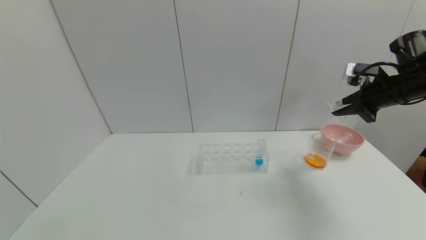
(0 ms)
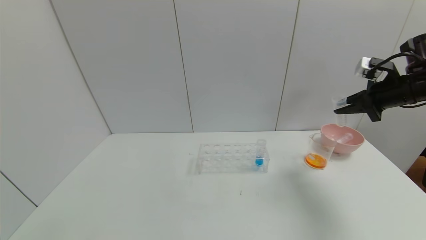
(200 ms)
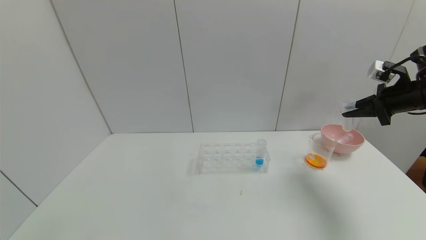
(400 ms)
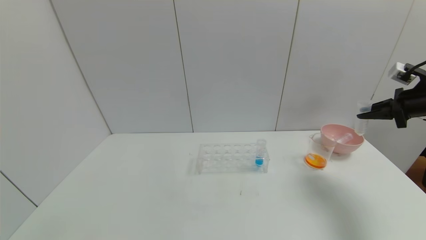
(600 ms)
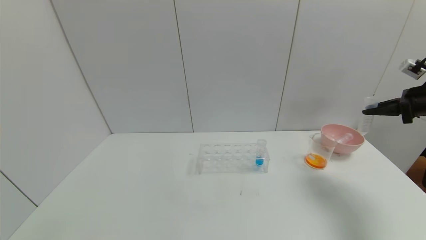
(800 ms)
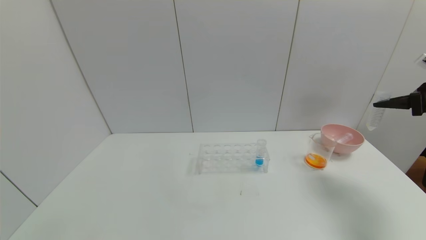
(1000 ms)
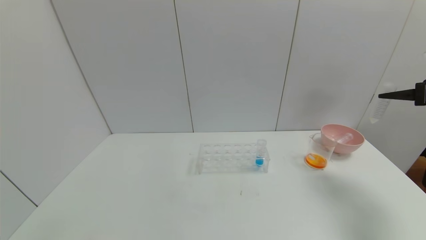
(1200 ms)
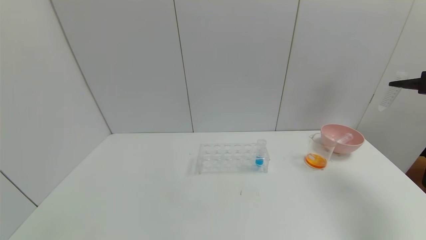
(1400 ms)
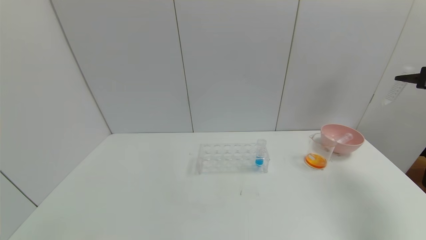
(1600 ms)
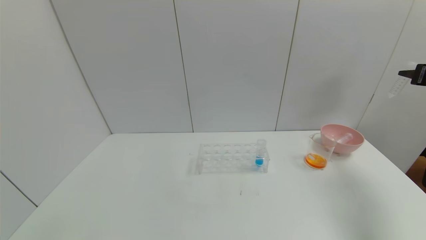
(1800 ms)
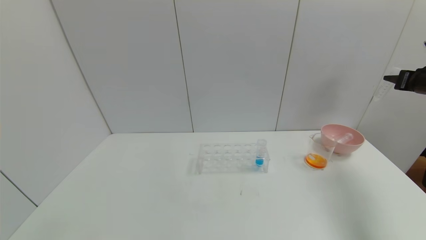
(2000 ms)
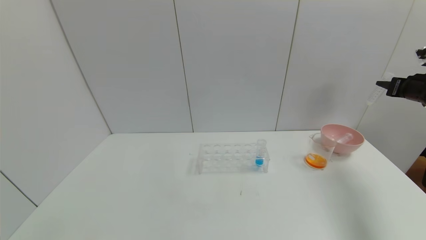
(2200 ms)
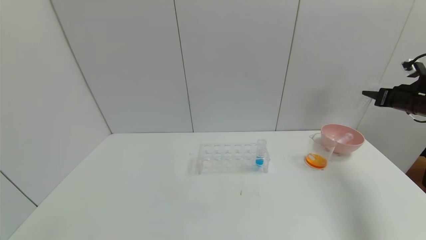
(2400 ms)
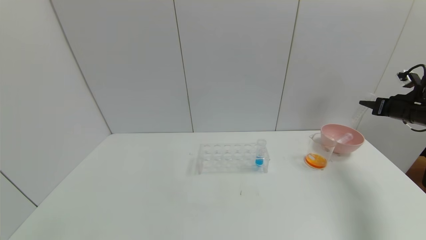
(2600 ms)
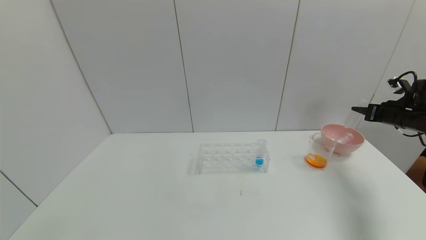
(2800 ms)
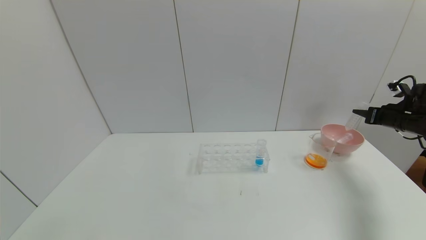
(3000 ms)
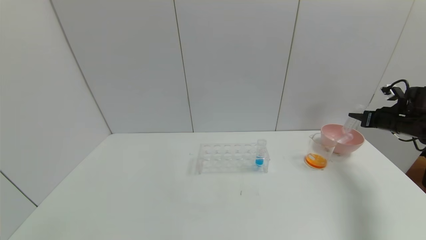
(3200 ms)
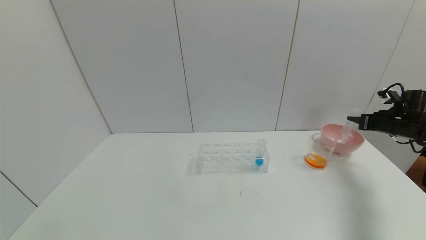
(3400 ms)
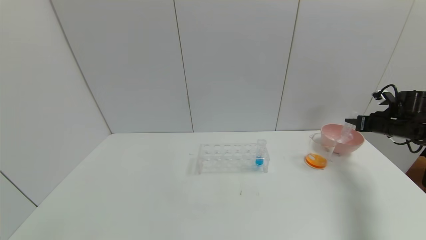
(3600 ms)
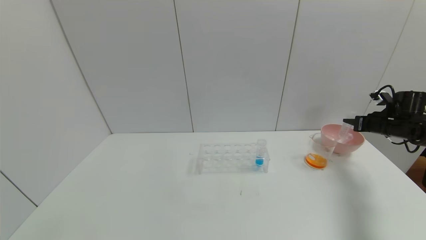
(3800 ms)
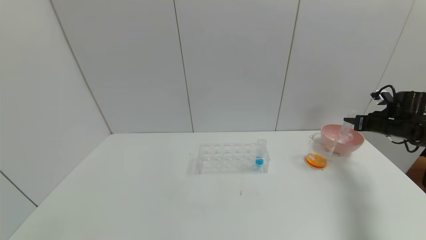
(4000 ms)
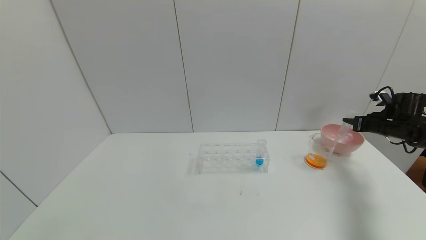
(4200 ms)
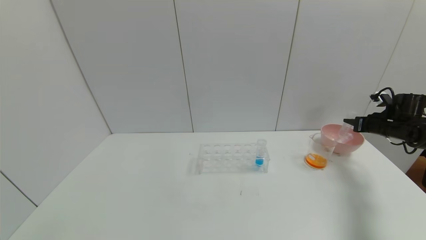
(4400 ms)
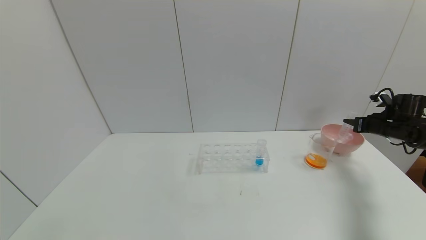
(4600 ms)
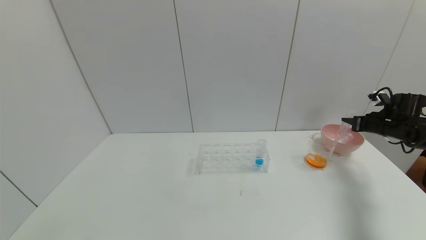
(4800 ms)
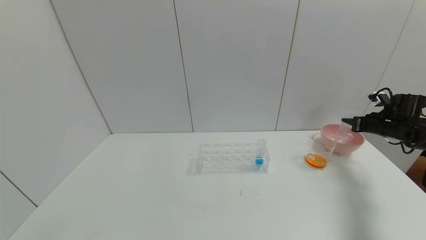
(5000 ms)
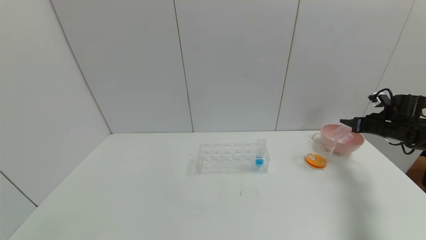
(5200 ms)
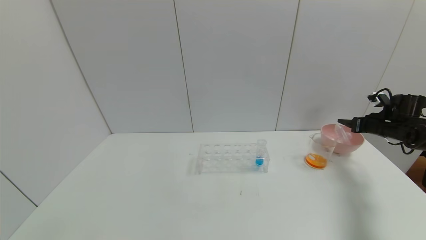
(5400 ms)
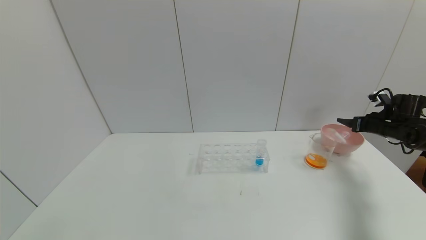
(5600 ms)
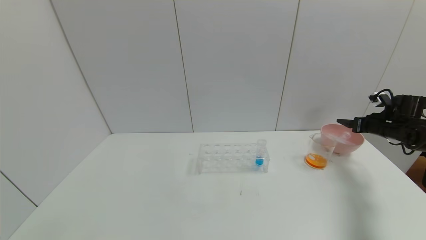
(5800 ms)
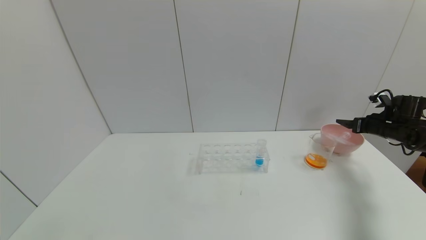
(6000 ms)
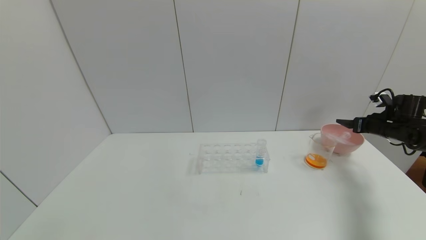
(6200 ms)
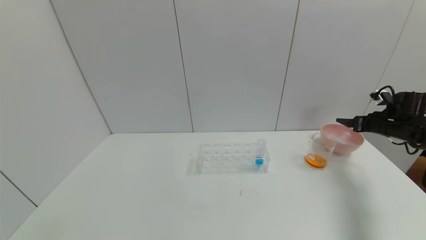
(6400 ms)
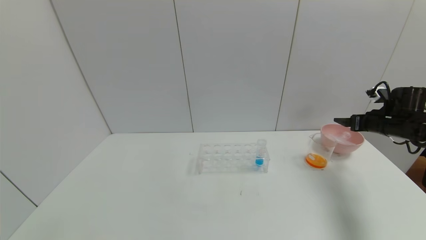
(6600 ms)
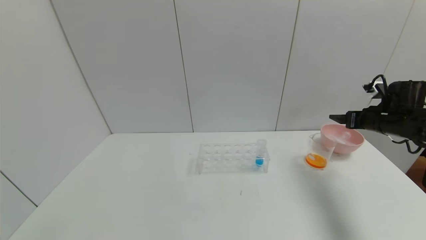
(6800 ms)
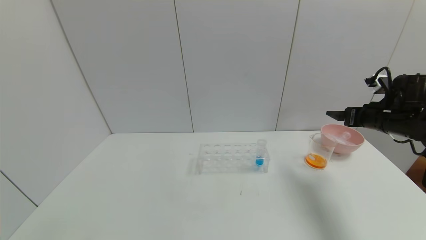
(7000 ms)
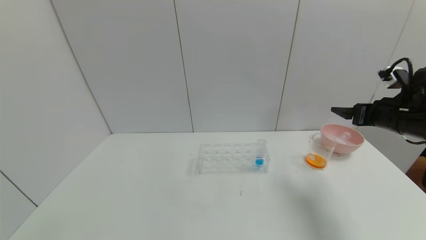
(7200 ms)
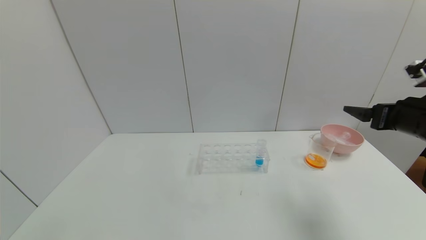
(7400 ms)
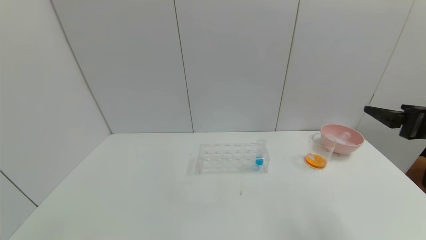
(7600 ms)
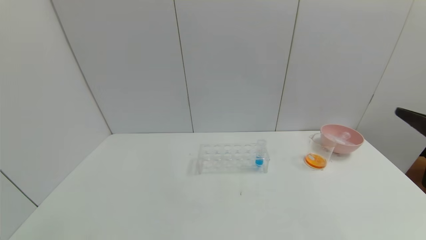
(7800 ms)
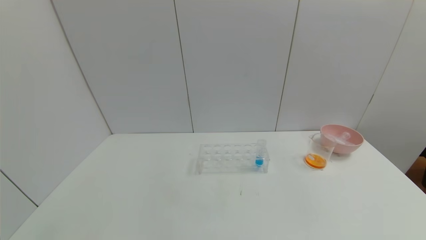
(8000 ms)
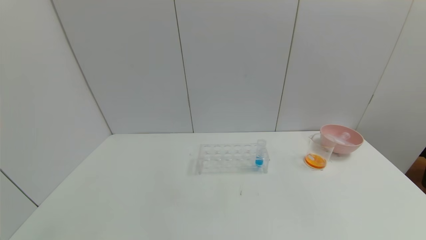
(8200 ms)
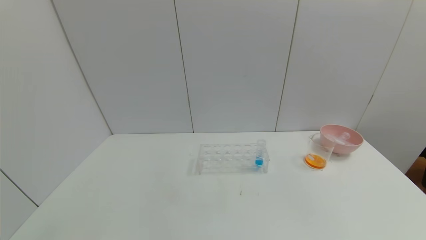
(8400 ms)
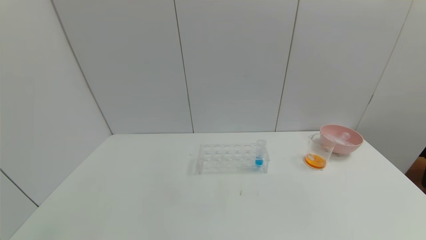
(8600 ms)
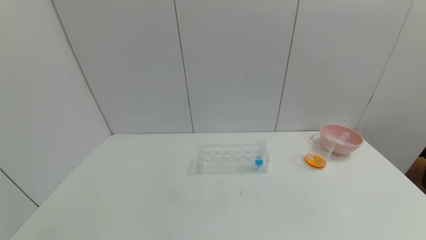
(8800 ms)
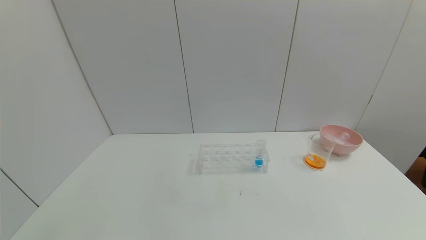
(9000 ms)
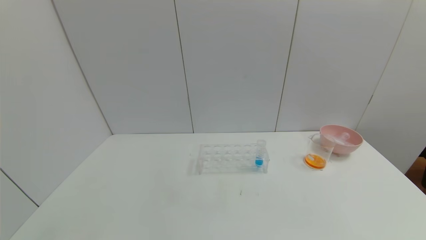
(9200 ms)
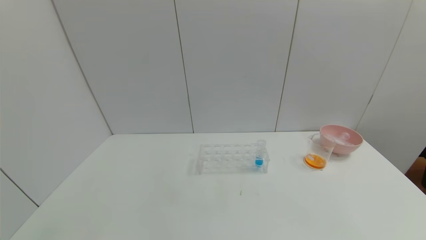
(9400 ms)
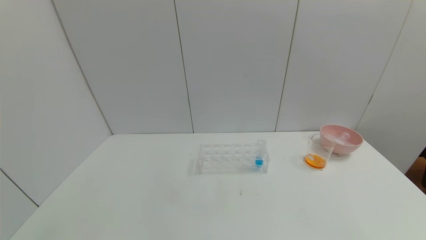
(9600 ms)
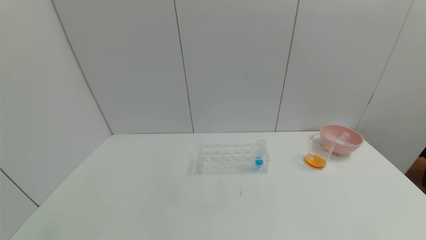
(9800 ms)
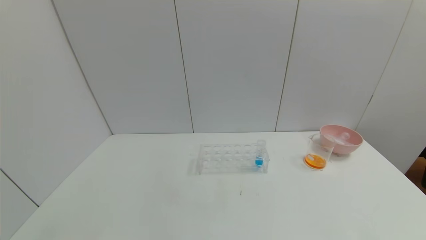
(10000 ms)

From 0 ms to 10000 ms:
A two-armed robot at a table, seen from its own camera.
Task of the whole recording: pick up the test tube with yellow pigment and the test tube with red pigment by grippers and pour them into the beaker.
Step, from 0 ms to 5200 ms: Place the test tube into the bowl with the right gripper.
From 0 ms to 1400 ms: The right gripper heads to the right, covering roughly 15 cm.
From 1400 ms to 2800 ms: The right gripper heads downward and forward, covering some 15 cm.
From 2800 ms to 4200 ms: The right gripper ends up some 5 cm from where it was.
From 4200 ms to 5800 ms: The right gripper opens up.
From 5800 ms to 7200 ms: The right gripper goes approximately 20 cm to the left, backward and upward.
From 7200 ms to 8600 ms: The right gripper goes some 35 cm backward.
